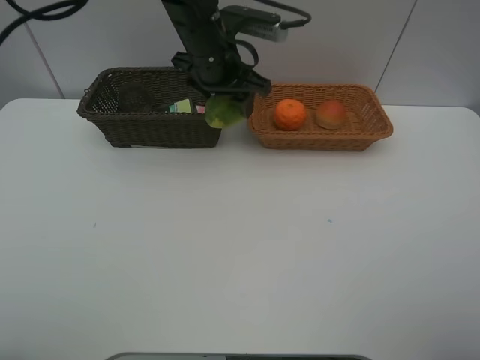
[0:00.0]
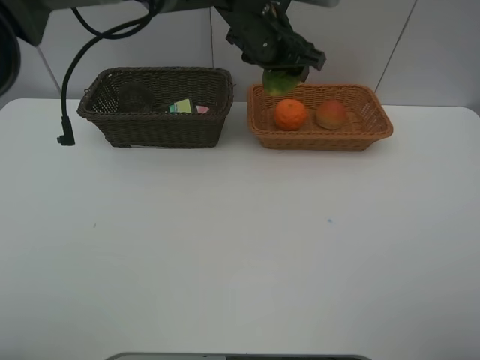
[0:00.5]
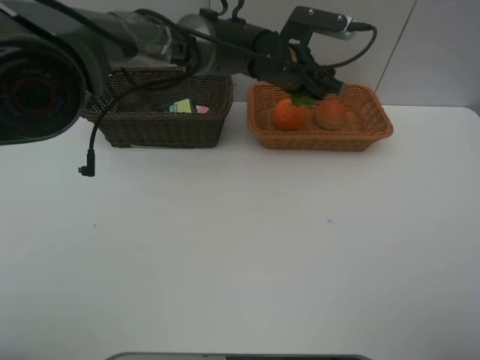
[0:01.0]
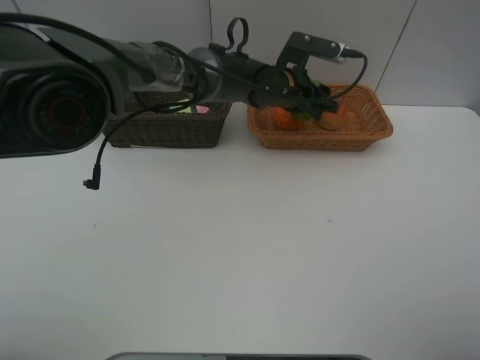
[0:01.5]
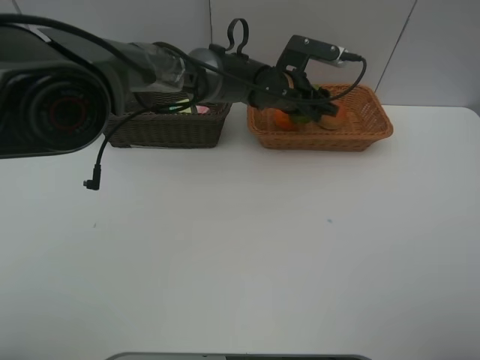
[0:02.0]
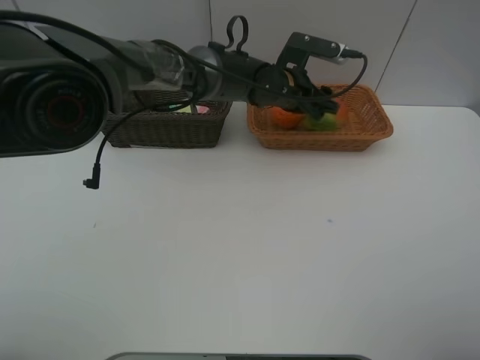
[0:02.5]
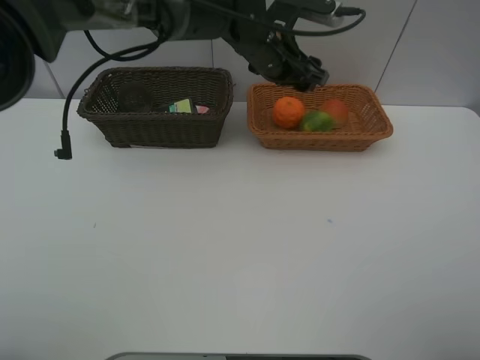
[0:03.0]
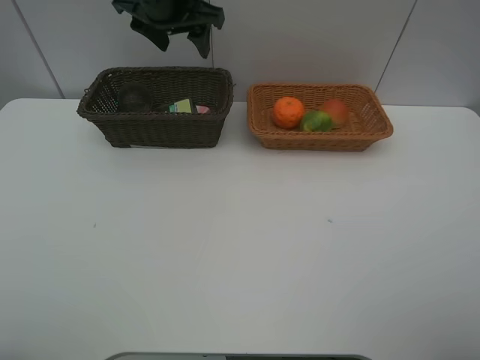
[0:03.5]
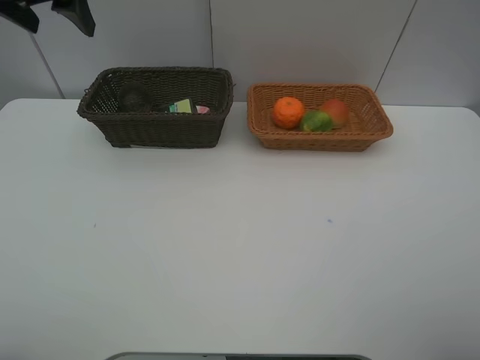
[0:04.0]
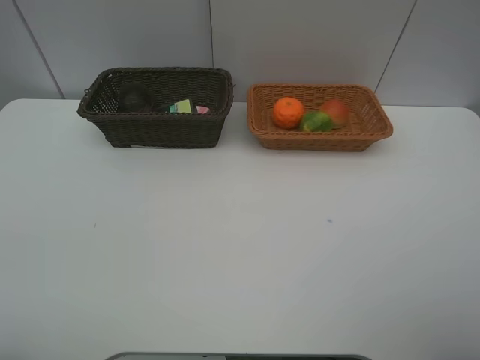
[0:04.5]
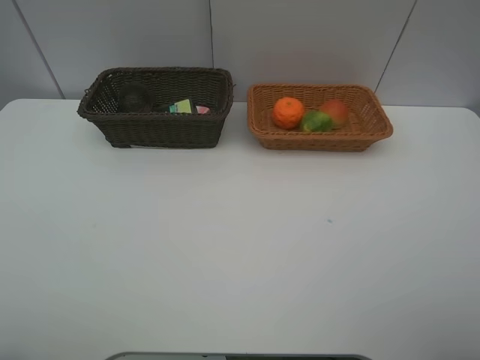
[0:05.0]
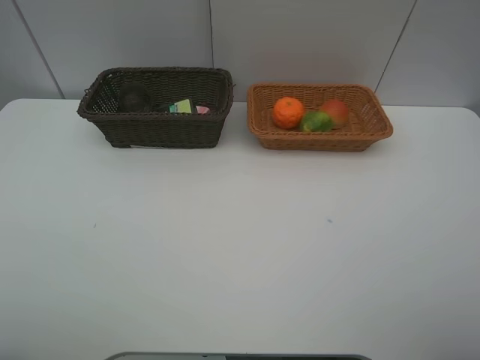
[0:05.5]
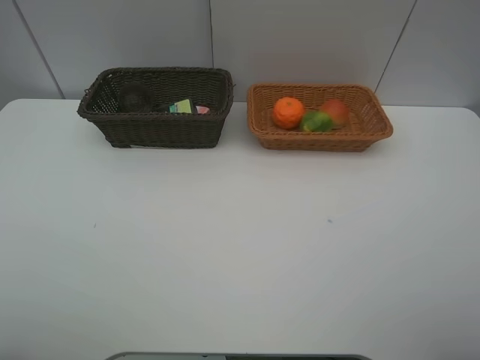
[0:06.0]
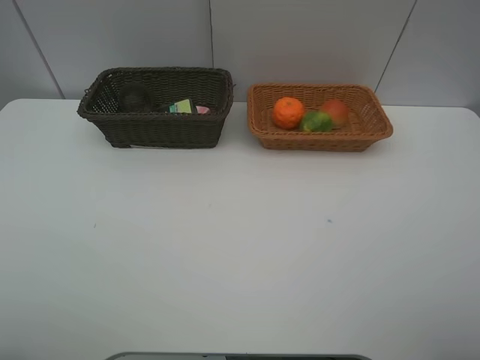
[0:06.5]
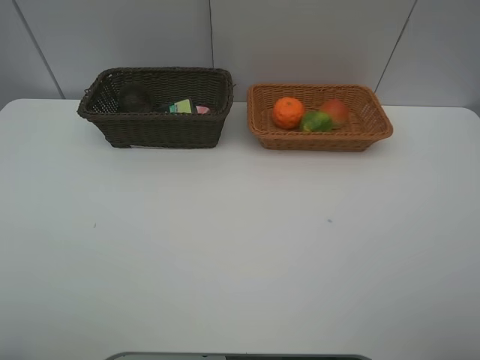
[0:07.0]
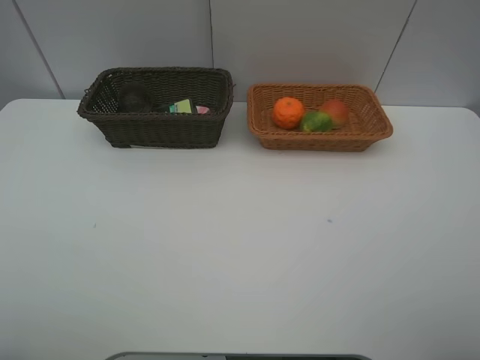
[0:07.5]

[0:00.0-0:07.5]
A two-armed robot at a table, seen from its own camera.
Task of the whole recording: place multiple objects separately in different baskets.
0:00.0 to 0:02.0: The left gripper moves to the right and downward, approximately 15 cm.
0:02.0 to 0:04.0: The left gripper is displaced to the left and upward by some 40 cm.
0:04.0 to 0:05.5: The left gripper travels backward by about 30 cm.

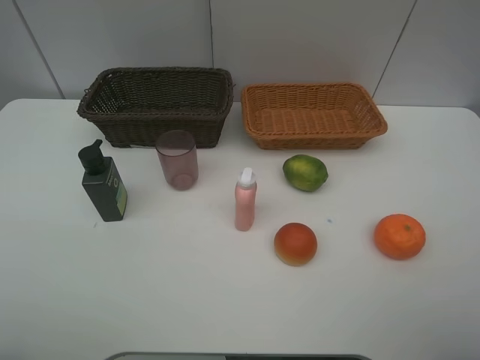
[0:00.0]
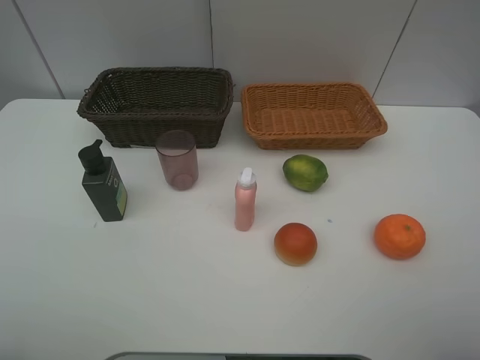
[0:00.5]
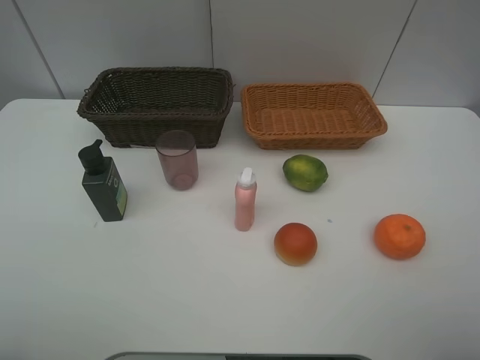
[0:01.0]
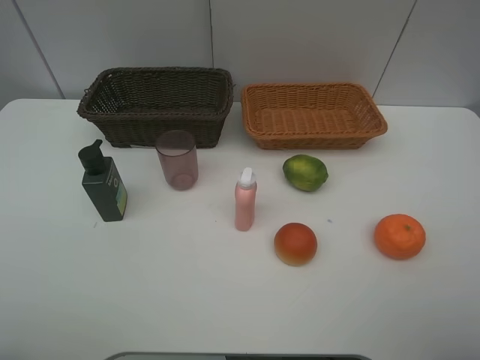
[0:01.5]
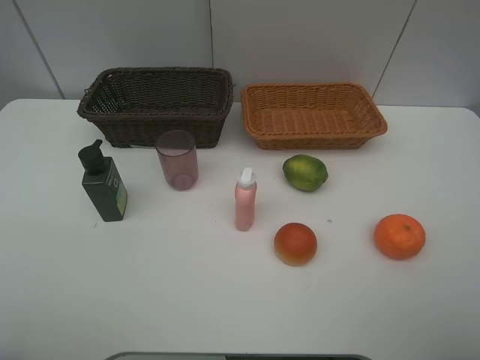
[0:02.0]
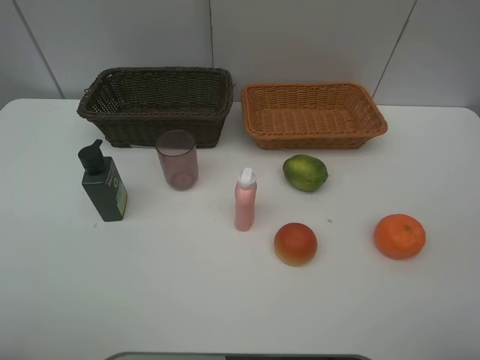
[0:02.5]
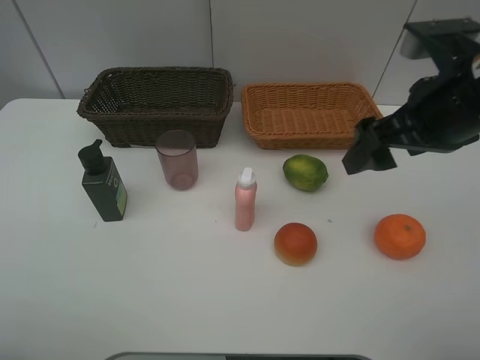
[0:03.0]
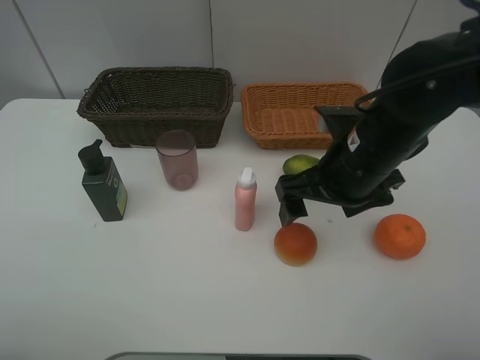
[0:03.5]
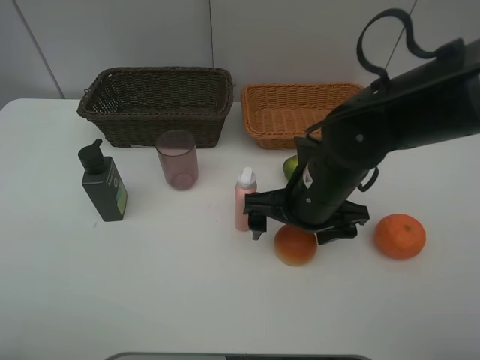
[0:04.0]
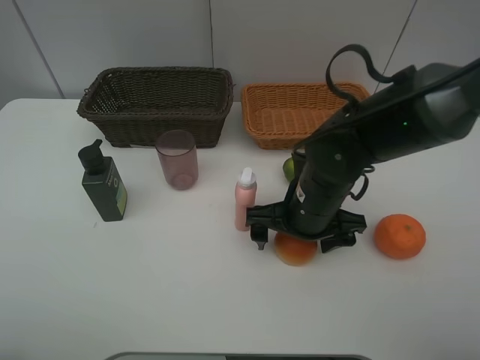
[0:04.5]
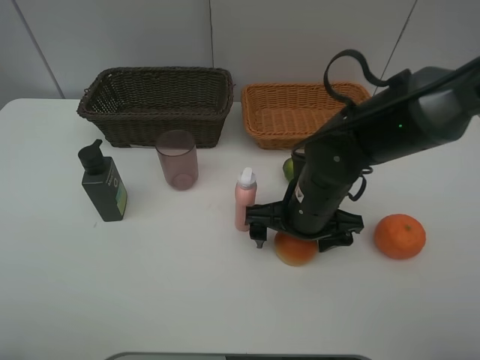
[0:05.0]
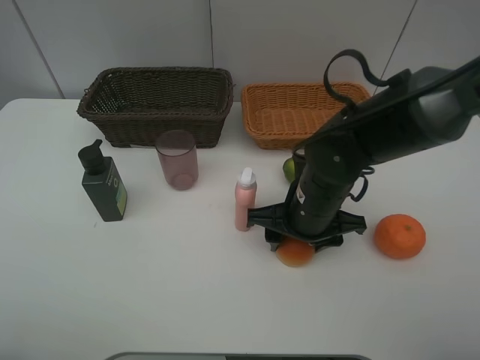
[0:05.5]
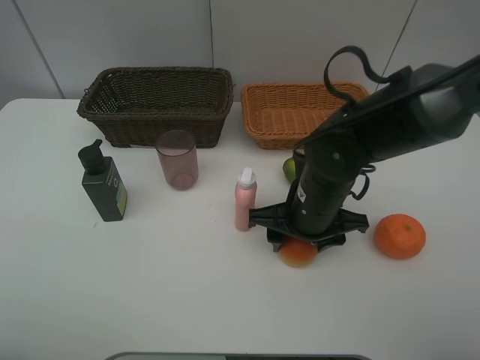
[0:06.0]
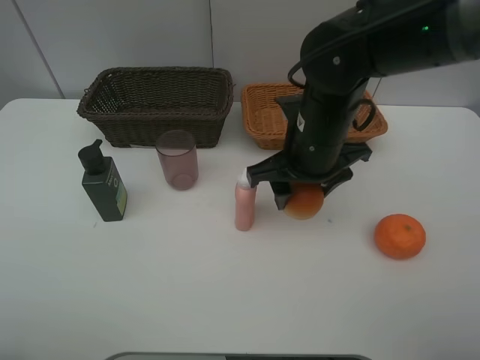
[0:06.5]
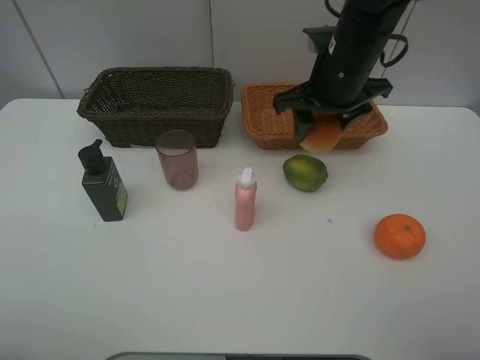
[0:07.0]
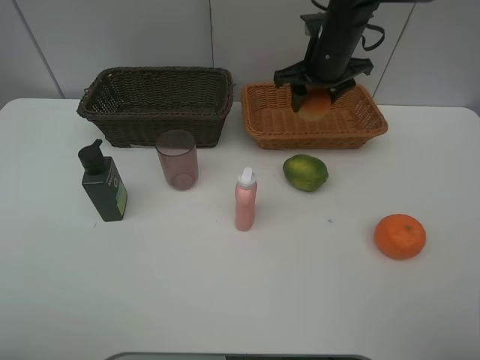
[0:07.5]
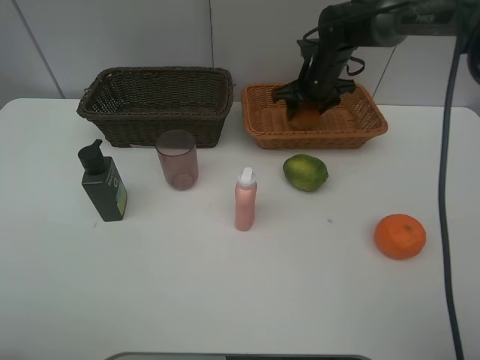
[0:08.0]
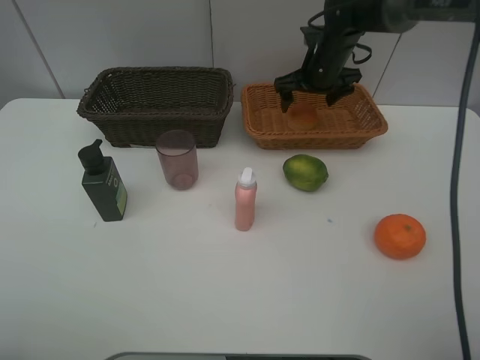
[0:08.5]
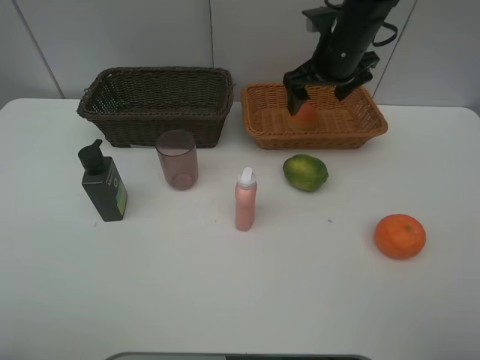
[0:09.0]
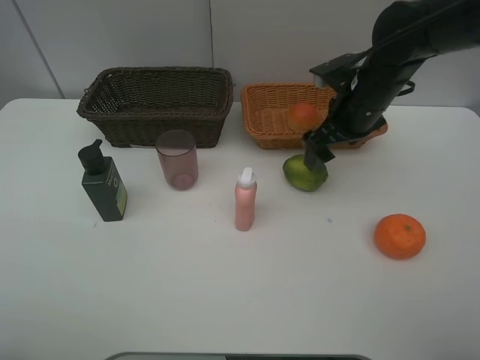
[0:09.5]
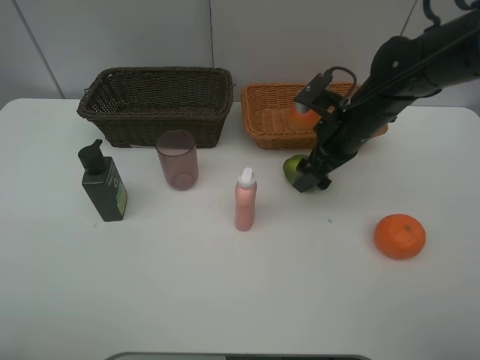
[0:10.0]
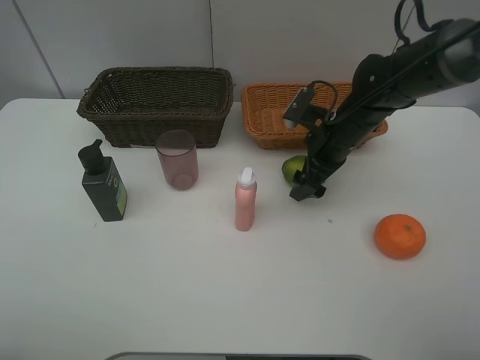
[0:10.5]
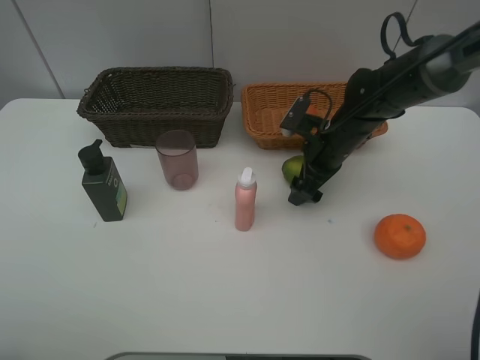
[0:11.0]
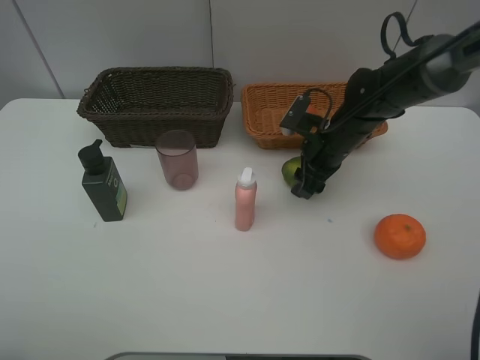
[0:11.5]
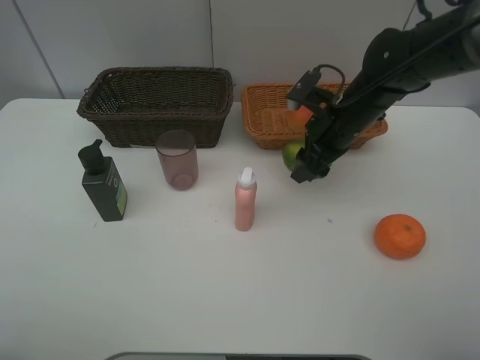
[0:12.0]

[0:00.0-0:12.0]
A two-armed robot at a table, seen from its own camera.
Task of the whole recording: place multiple objects separately in different baskets.
0:00.0 to 0:02.0: Neither gripper changes place.
0:02.0 to 0:04.0: The right gripper shifts some 35 cm forward, to the left and downward.
0:04.0 to 0:06.0: The right gripper closes up.
0:06.0 to 0:08.0: The right gripper goes some 25 cm forward.
0:08.0 to 0:10.0: The right gripper goes some 15 cm backward, and opens up.
0:10.0 to 0:12.0: The right gripper closes.

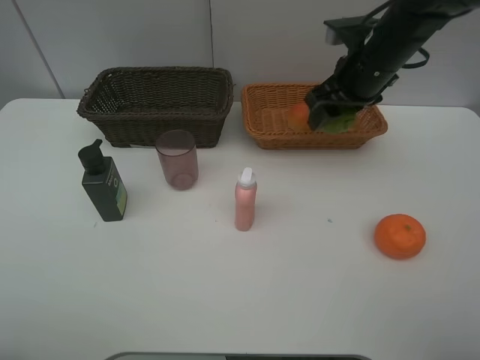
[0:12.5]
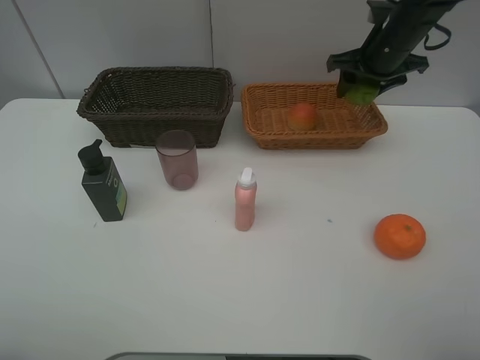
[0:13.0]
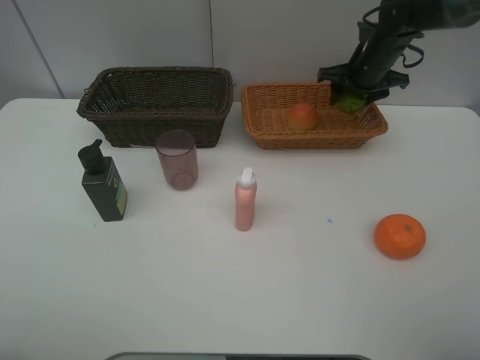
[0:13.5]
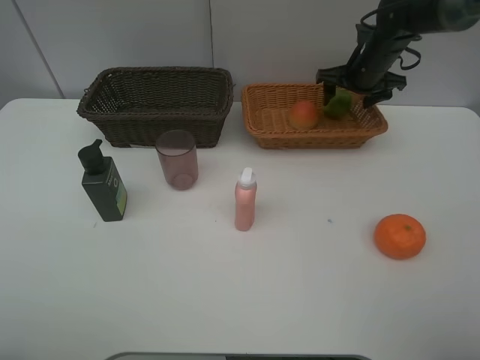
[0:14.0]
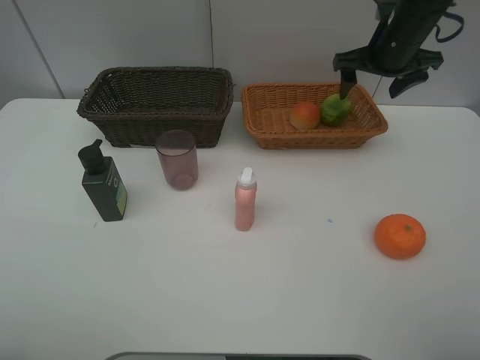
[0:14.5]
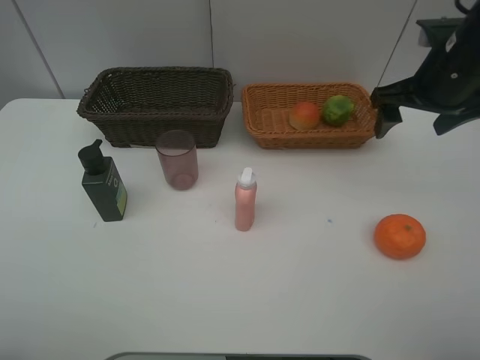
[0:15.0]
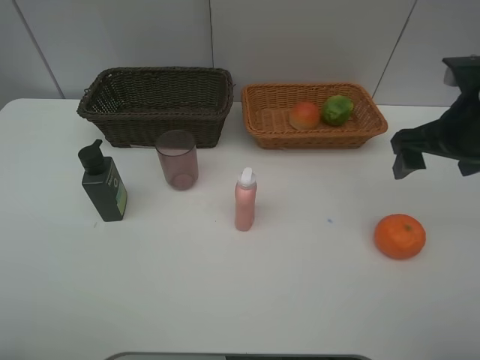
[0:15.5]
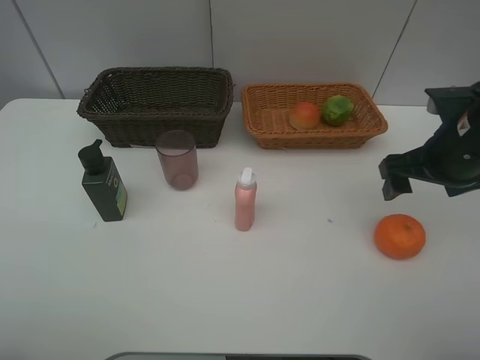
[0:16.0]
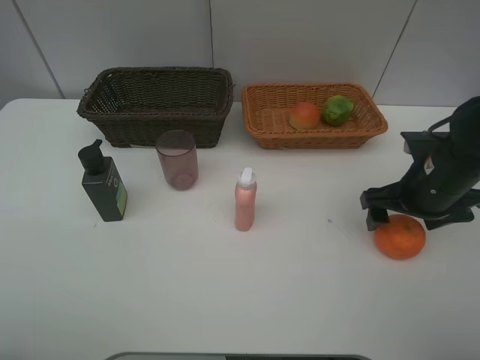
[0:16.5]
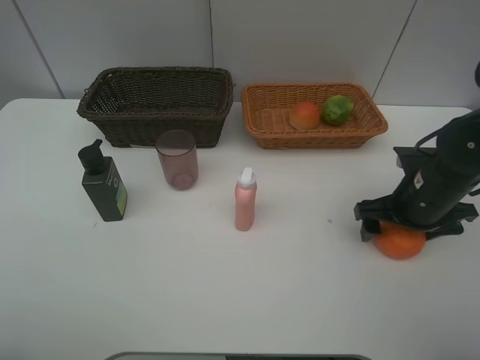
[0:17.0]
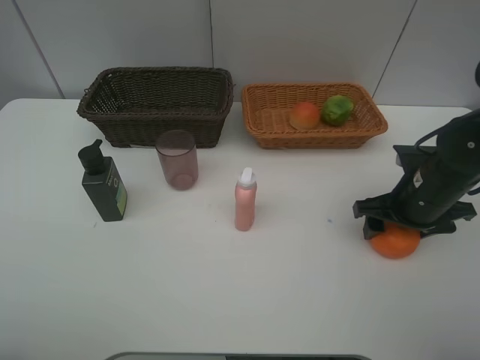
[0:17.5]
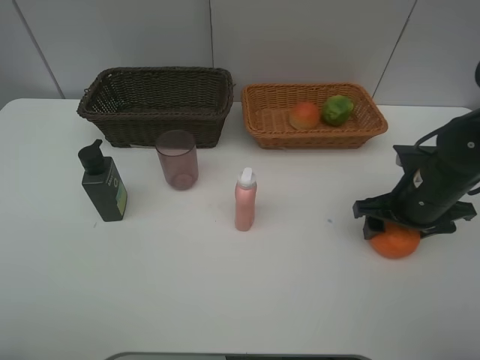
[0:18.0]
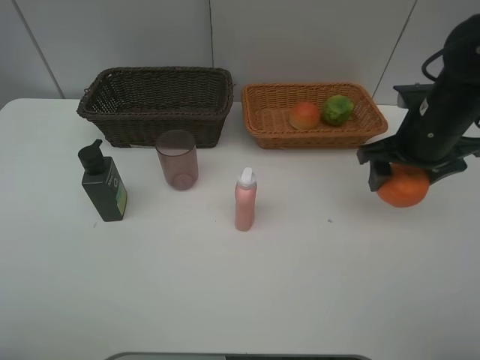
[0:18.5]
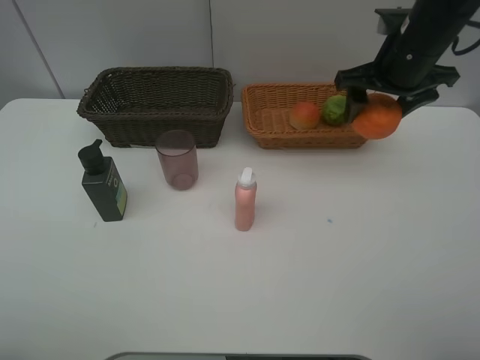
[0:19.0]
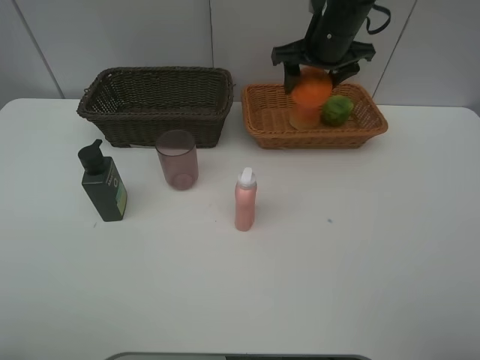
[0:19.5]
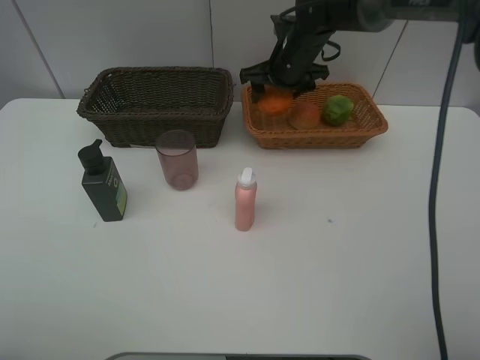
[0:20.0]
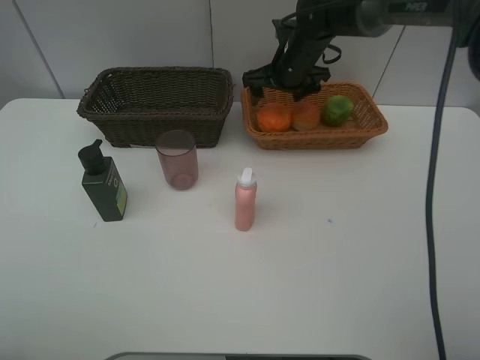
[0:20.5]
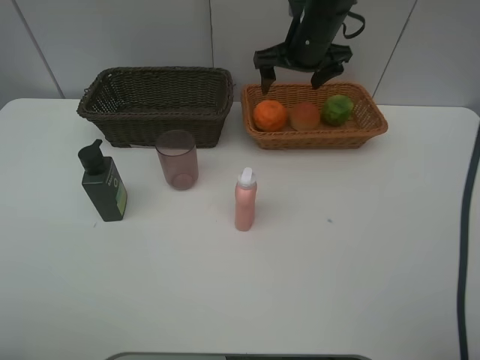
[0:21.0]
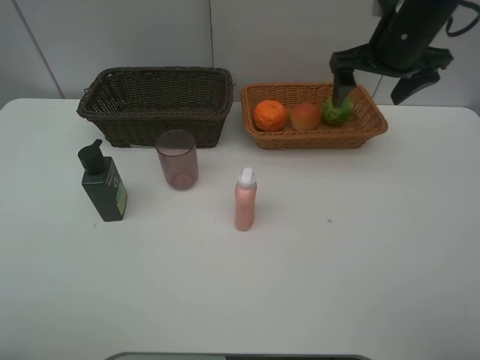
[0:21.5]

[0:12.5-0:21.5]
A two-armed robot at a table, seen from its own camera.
Task of the whole recording: place multiple objects separately in different baskets.
0:12.5 to 0:14.5: The right gripper opens its fingers.
0:14.5 to 0:17.0: The right gripper goes about 20 cm backward and downward.
0:17.0 to 0:19.5: The right gripper moves forward, upward and to the left, about 25 cm, and closes its fingers.
0:19.5 to 0:21.5: The right gripper travels to the right and backward by roughly 15 cm, and opens up.
